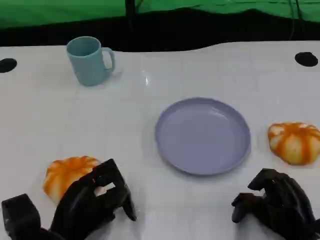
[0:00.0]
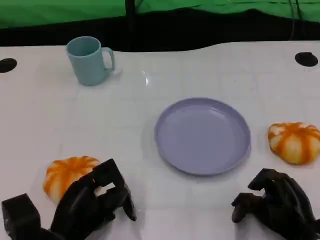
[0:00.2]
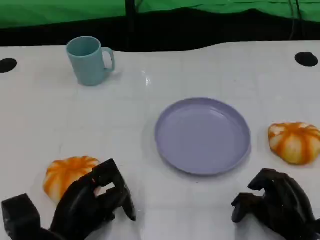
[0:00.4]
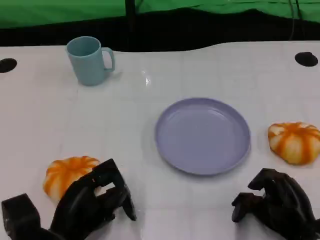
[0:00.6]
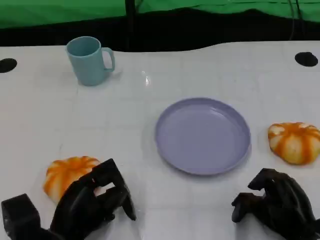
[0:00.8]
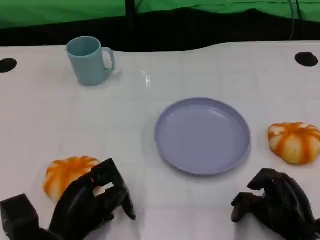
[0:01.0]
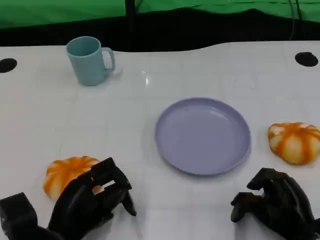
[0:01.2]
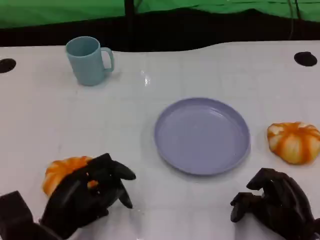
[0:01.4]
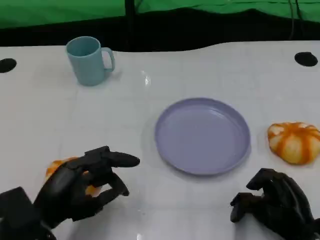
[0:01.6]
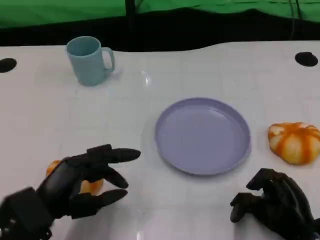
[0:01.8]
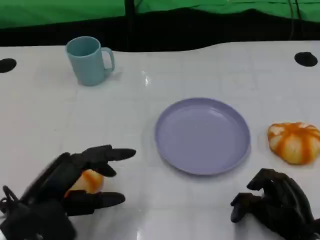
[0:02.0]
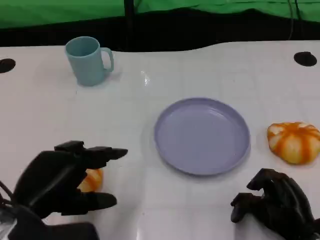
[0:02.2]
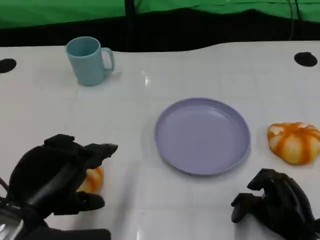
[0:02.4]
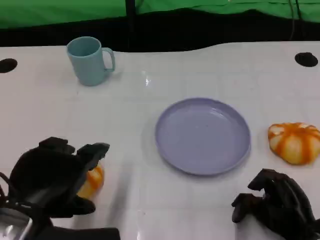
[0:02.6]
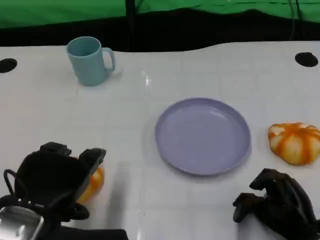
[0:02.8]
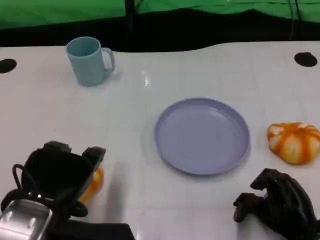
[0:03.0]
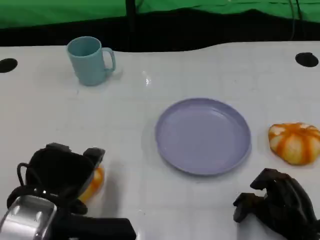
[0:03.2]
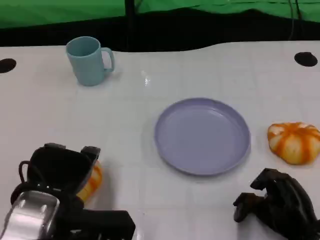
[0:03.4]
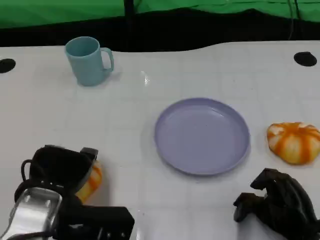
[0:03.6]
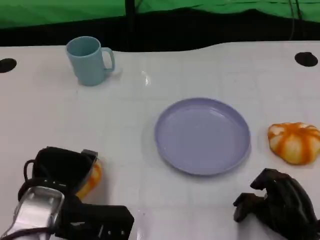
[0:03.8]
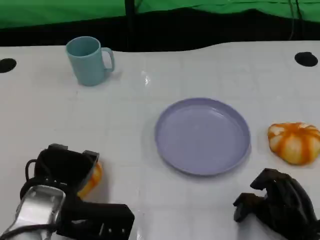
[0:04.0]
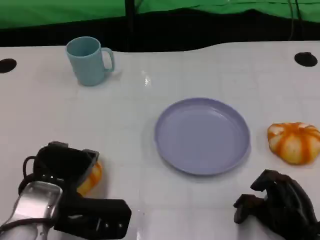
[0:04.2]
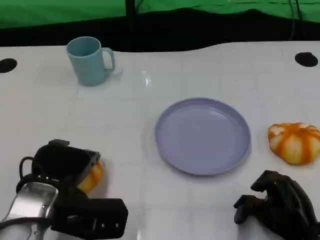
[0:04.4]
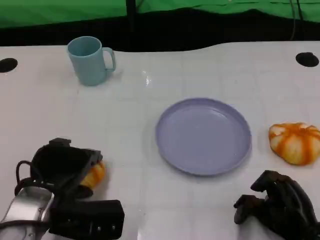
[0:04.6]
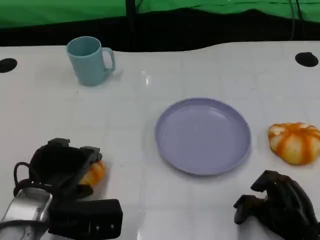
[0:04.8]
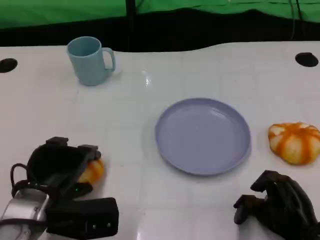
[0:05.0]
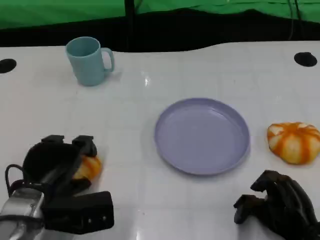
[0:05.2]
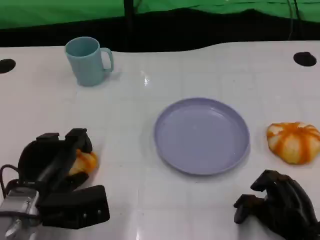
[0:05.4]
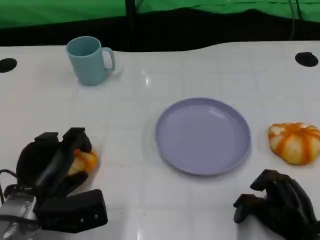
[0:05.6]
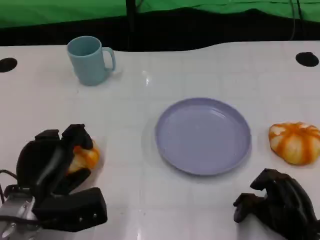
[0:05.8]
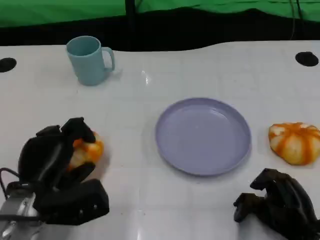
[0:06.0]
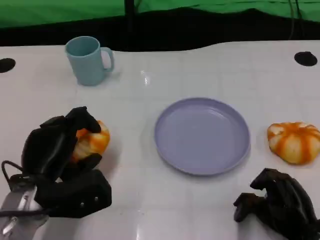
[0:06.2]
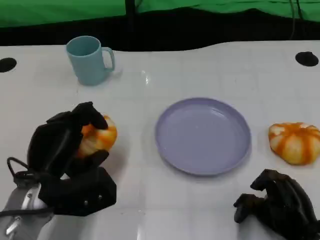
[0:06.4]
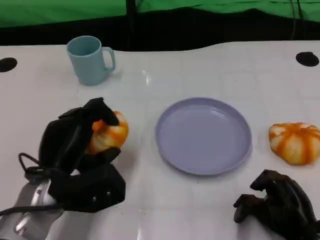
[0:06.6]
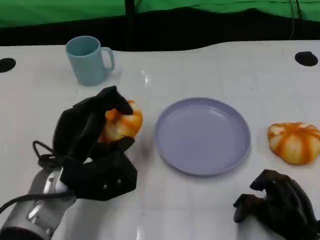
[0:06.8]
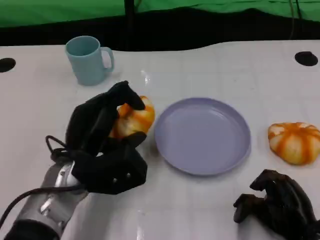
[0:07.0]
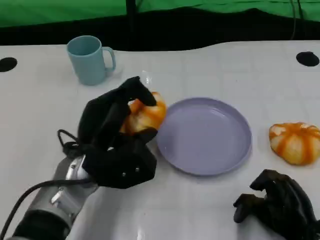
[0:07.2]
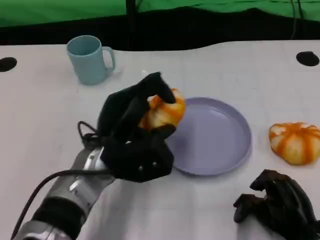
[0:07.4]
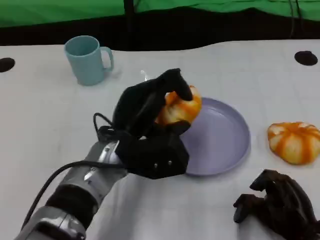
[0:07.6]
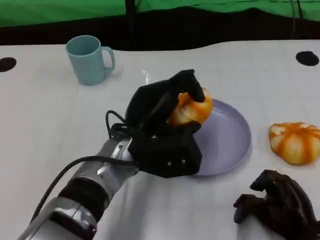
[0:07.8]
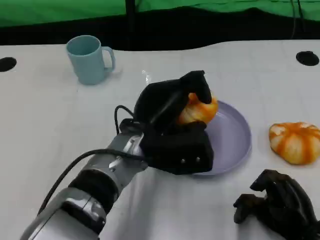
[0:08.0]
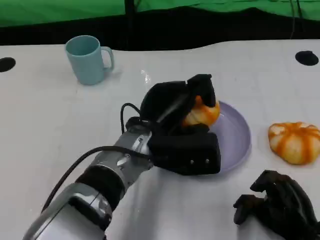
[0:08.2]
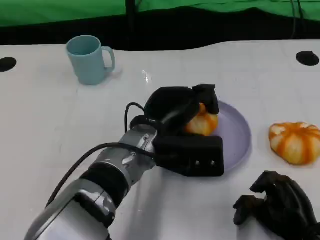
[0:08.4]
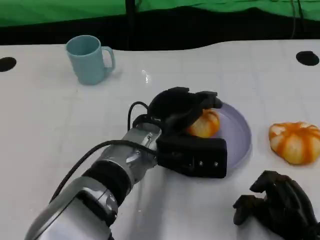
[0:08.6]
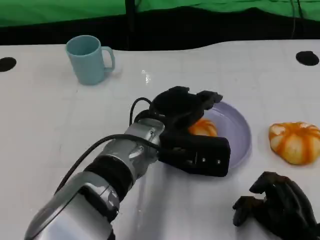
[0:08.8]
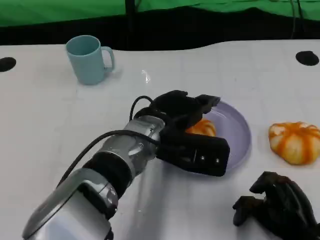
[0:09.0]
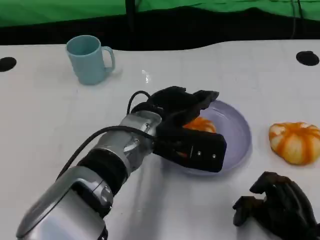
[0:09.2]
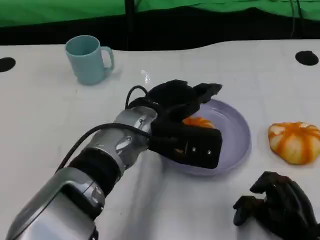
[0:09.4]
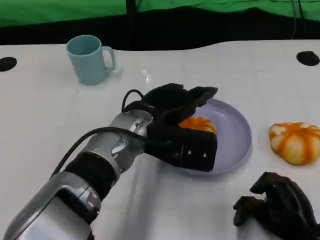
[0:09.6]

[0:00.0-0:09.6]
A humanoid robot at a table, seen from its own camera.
Task of the whole recording: Grasp the bread from the table and place it into the plate.
0:00.0 to 0:01.6: The left hand ends up some 5 cm from where it was.
0:01.6 to 0:03.2: The left hand moves upward, roughly 5 cm.
0:03.2 to 0:04.8: The left hand heads downward, covering about 5 cm.
0:06.4 to 0:08.0: The left hand goes roughly 15 cm to the right.

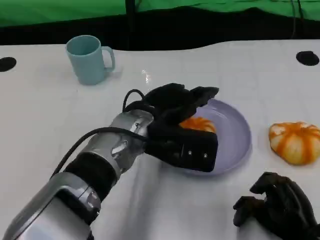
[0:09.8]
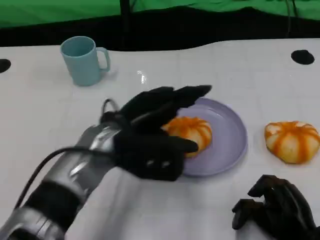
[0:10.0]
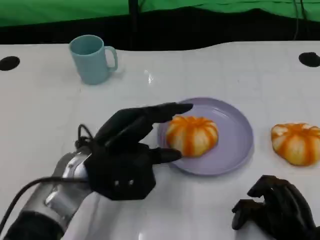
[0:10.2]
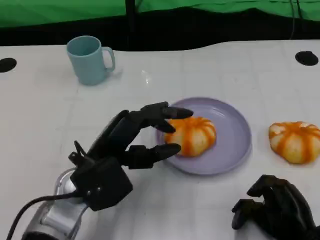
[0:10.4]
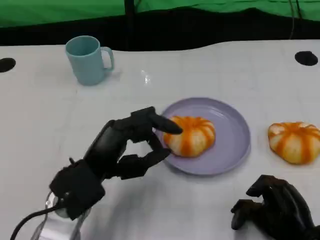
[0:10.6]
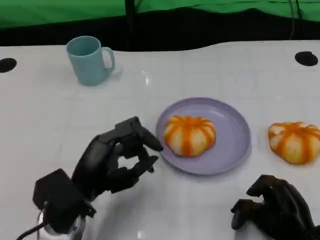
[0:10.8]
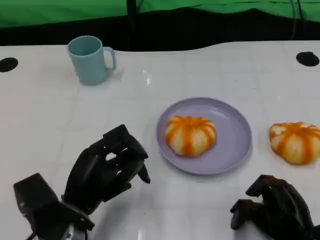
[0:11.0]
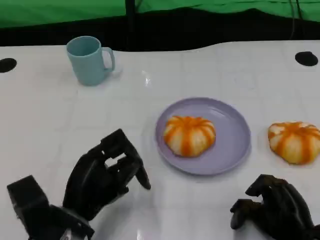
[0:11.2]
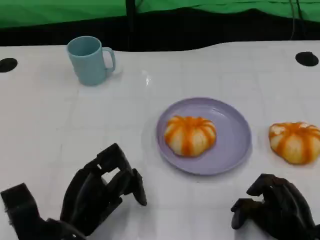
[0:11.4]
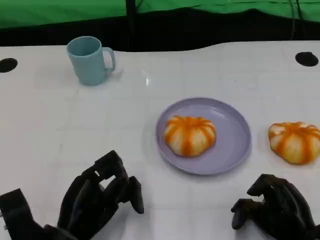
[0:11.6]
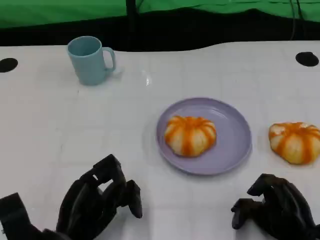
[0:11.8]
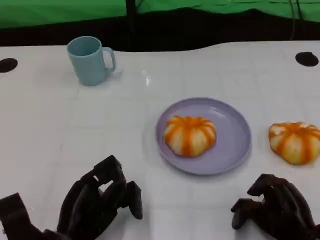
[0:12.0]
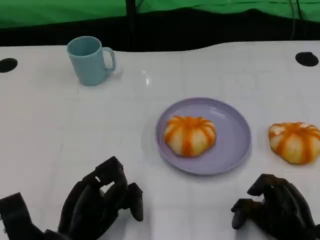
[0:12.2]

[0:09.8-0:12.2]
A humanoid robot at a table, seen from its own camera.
Task of the whole recording: Grasp the bread from the table and place it into the plate.
0:09.8 to 0:11.0: The left hand heads to the left, backward and downward, covering some 15 cm.
